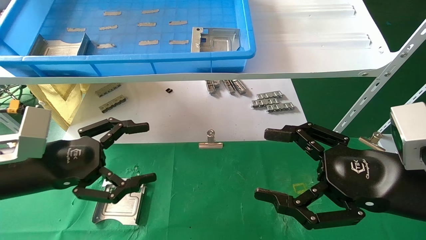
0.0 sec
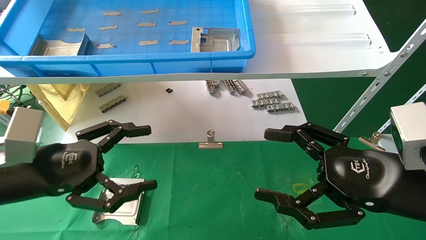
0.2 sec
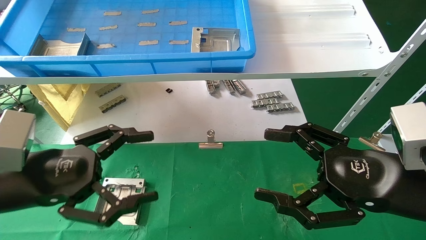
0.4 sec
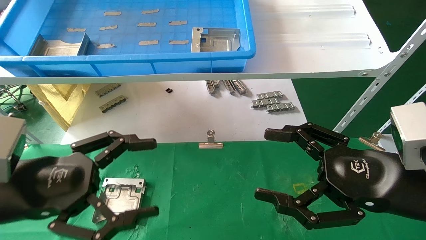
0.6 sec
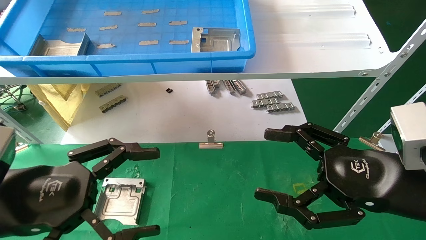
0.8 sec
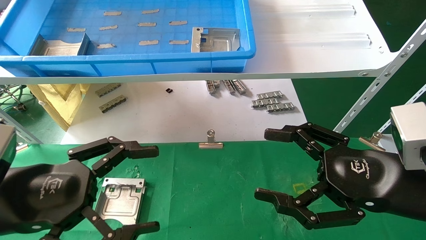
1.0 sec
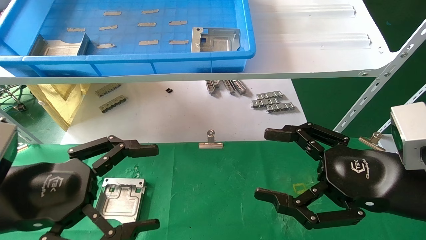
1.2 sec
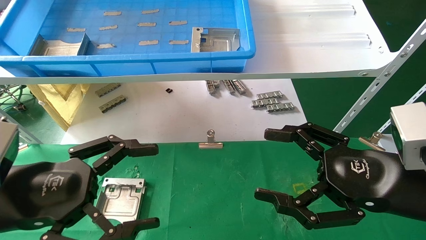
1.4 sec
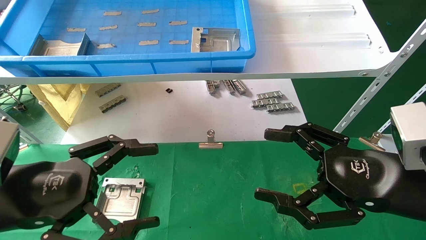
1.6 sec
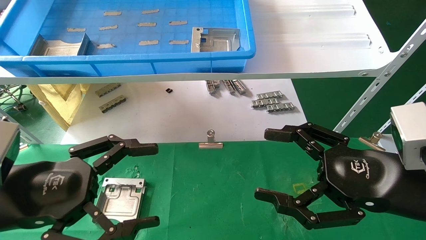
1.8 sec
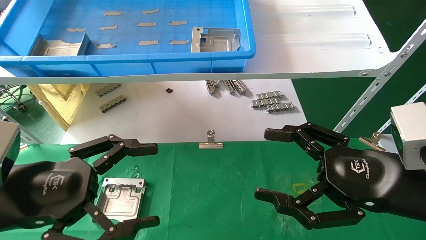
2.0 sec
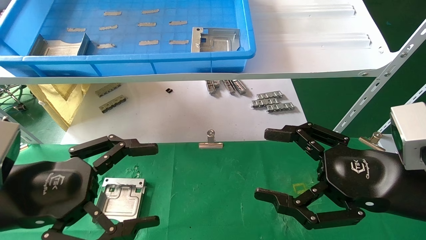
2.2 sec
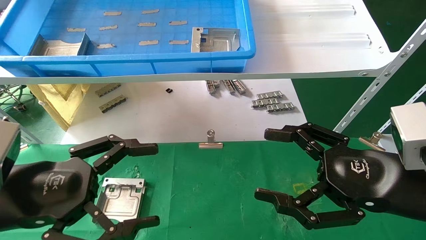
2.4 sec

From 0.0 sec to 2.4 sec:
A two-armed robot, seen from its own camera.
Task of the whole recording: use the mechanical arm to pick up the parts and place them on the table.
From 0.0 sec to 1.2 sec: The left gripper travels backward by some 5 cm.
From 1.2 sec to 2.4 sec: Both grippers stay about where they are.

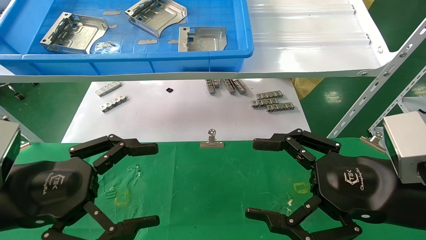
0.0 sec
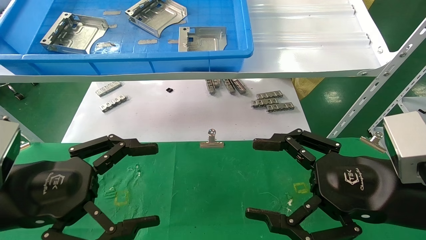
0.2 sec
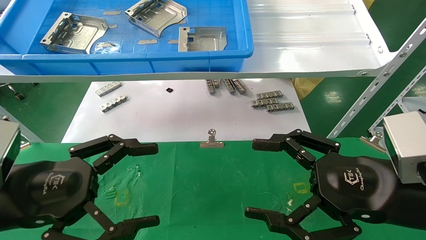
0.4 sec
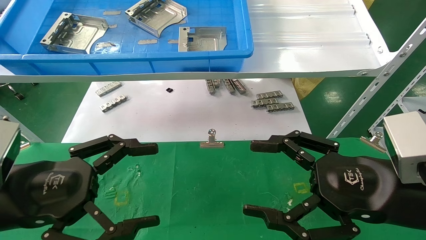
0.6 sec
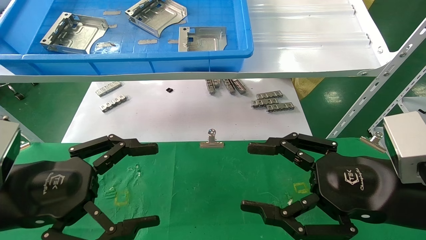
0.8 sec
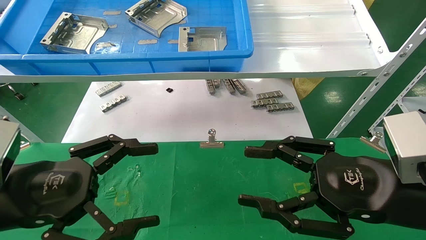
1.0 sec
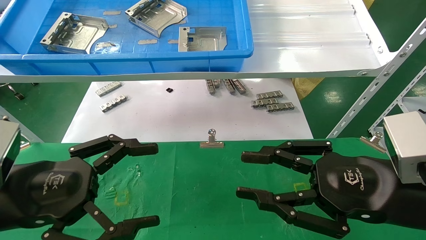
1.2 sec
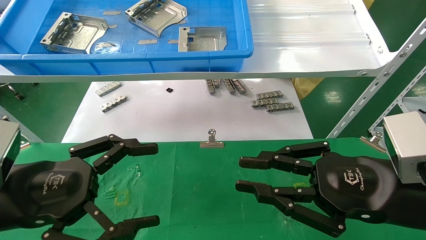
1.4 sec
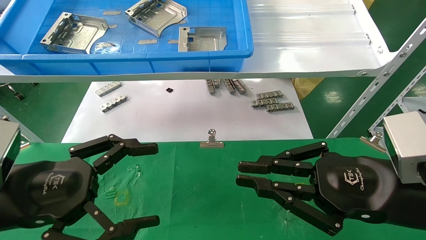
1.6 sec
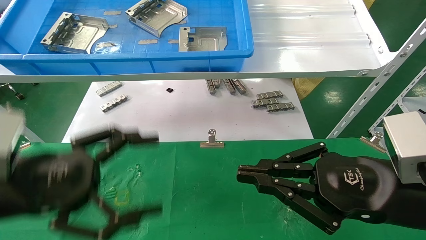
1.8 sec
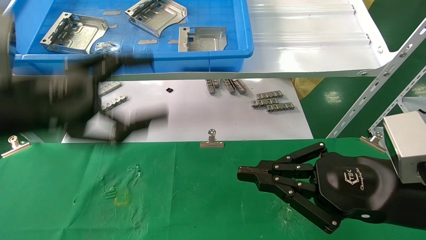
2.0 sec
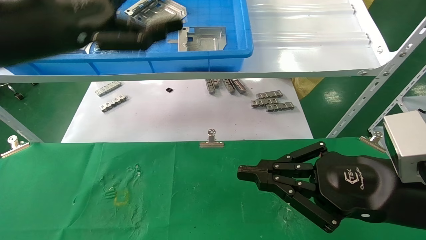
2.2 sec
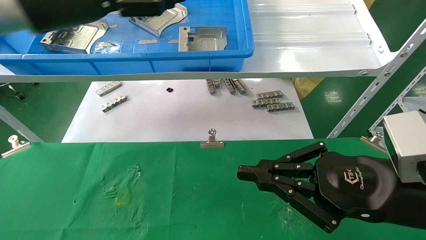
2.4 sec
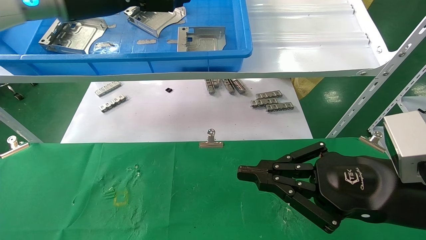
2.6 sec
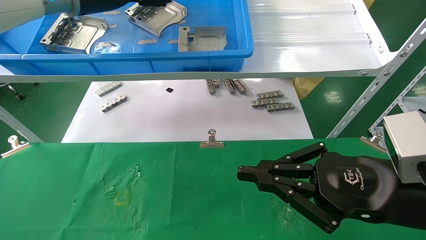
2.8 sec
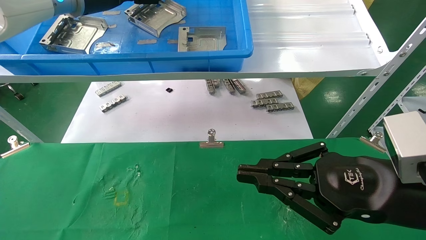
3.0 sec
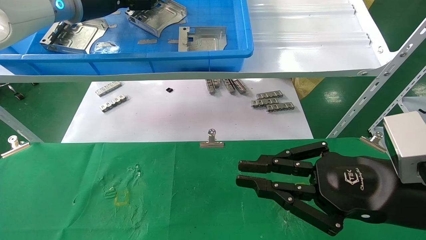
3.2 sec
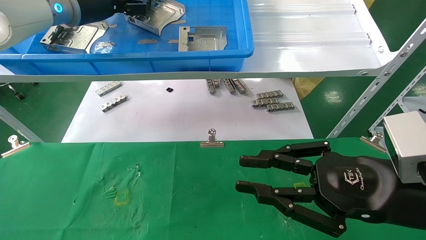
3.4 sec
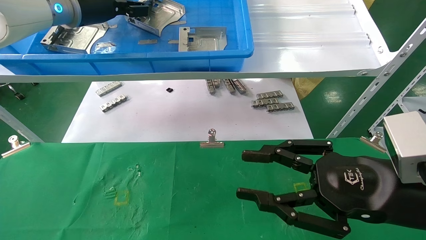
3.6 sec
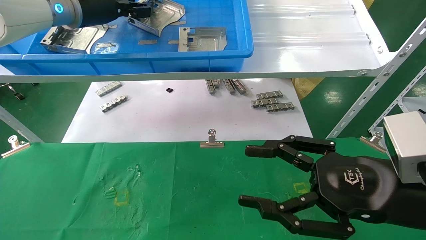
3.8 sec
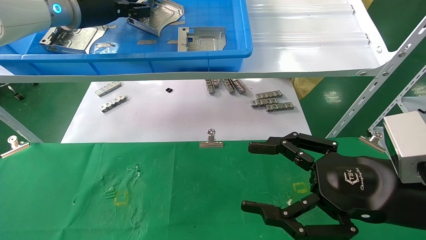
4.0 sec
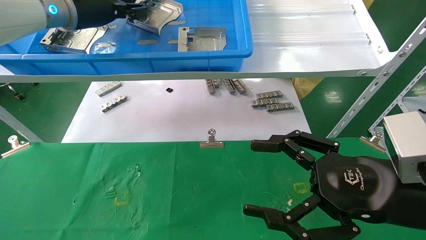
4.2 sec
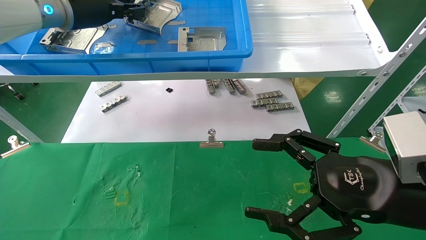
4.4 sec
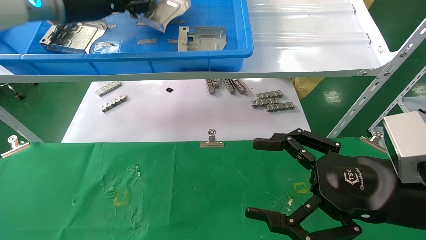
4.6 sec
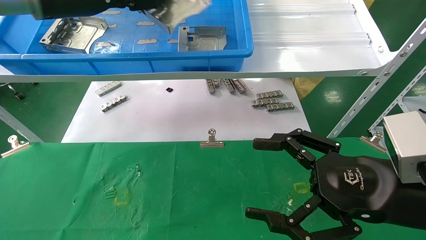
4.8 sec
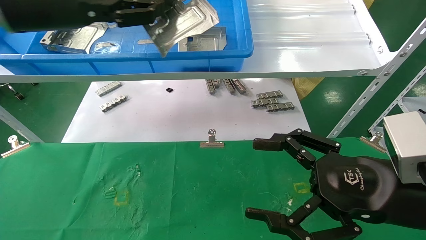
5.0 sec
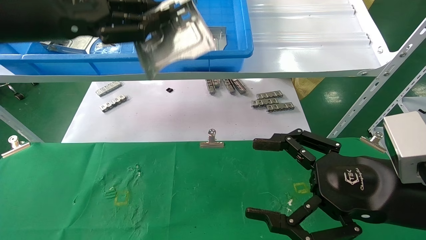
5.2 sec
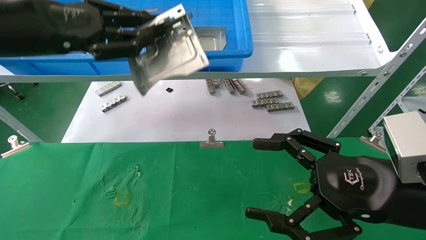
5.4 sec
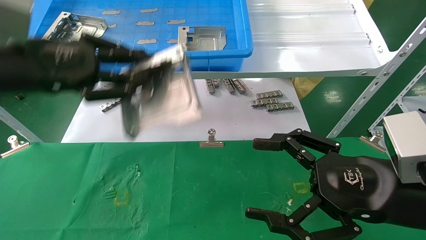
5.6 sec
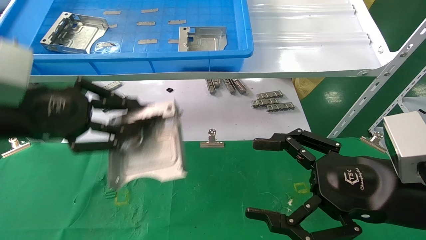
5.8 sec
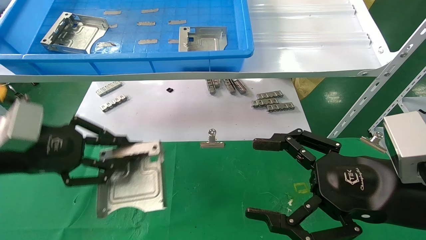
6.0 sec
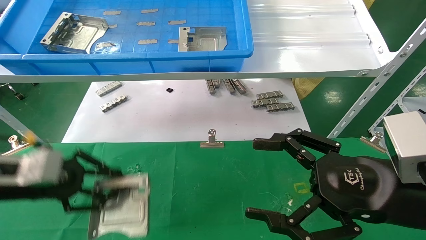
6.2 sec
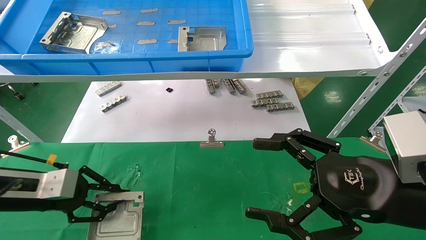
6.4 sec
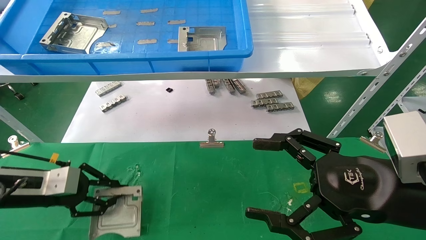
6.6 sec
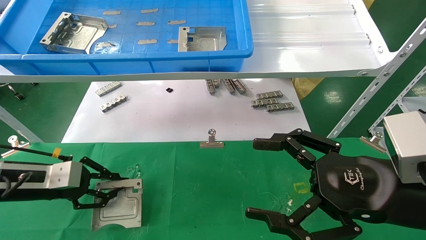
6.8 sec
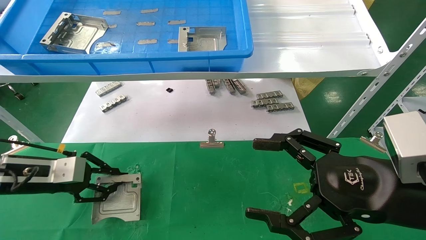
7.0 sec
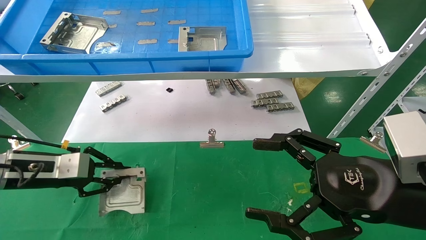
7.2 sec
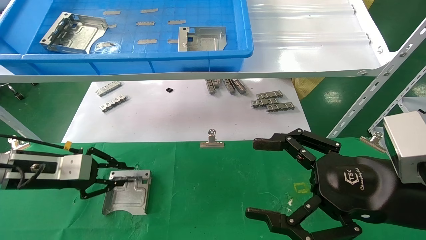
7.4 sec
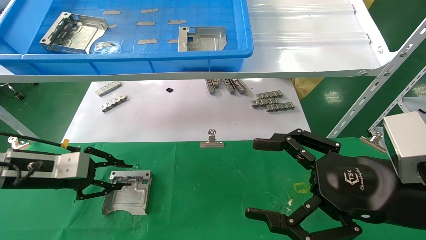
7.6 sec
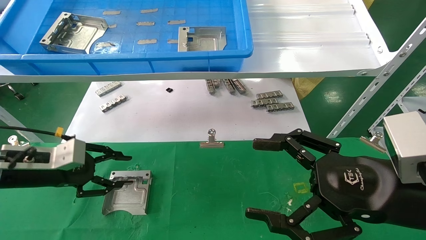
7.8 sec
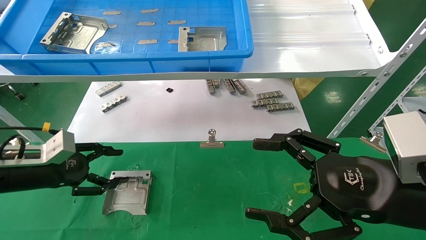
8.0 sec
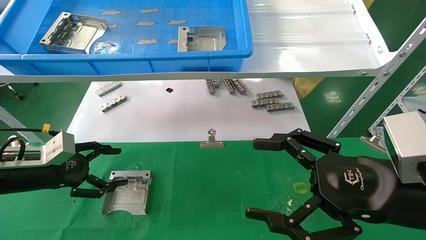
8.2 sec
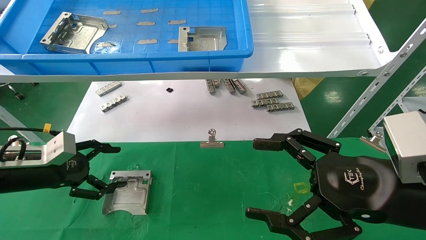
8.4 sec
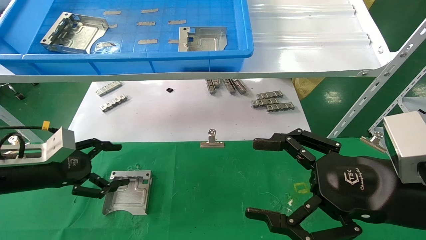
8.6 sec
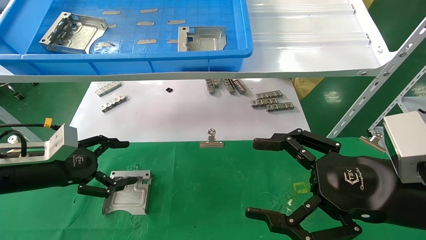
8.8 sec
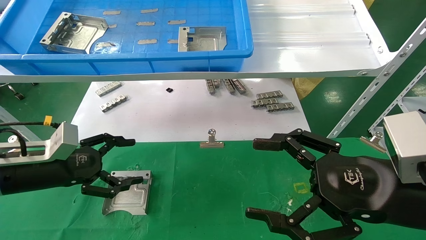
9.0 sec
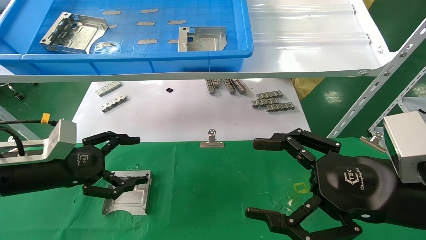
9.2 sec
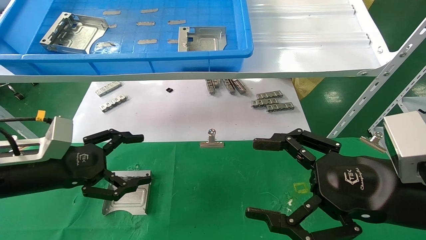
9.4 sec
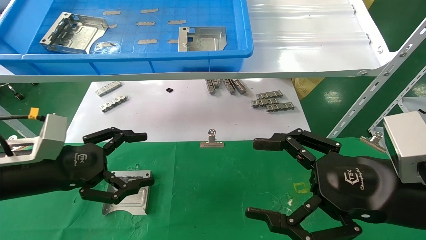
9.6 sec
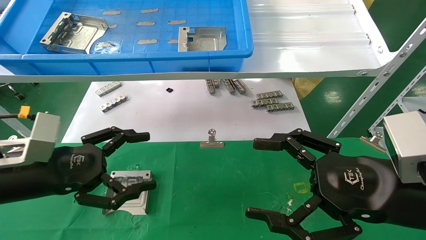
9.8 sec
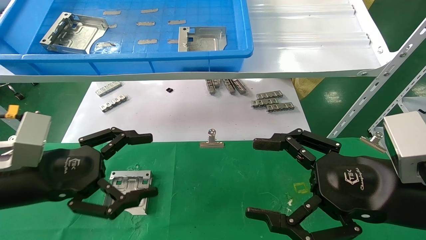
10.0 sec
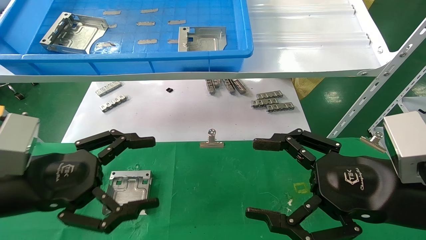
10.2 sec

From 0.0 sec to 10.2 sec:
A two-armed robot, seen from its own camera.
Task of the whole recording: use the mechanical arm to pick up the parts and place them on the table.
Step, from 2.0 sec to 4.4 sec: Pick up the hard drive bracket from the feeding area.
Step, from 4.6 sec to 7.6 sec: Place the hard drive bracket into the box.
From 0.0 sec to 1.4 sec: The right gripper closes.
From 1.4 sec to 3.0 sec: The left gripper shifts roughly 35 cm upward and forward.
From 3.0 sec to 4.4 sec: The left gripper closes. Meanwhile the right gripper opens its fingers.
From 4.4 sec to 5.8 sec: The left gripper moves backward and downward, approximately 20 cm.
From 5.8 sec to 7.2 sec: The left gripper shifts about 15 cm downward, forward and to the left.
From 7.2 sec to 8.8 sec: The left gripper opens its fingers.
From 8.8 sec to 10.2 sec: The left gripper shifts about 10 cm backward and to the right.

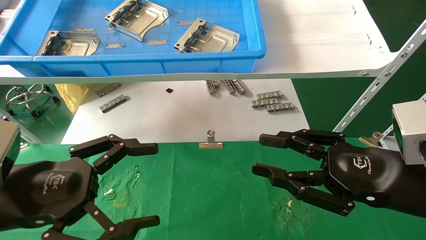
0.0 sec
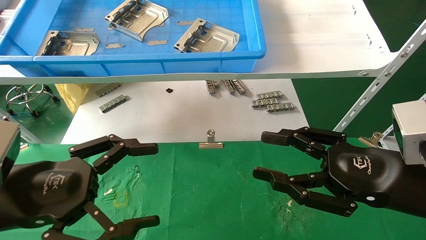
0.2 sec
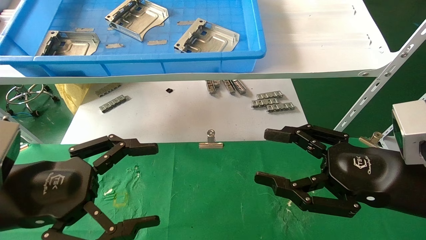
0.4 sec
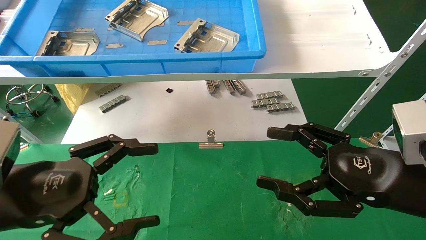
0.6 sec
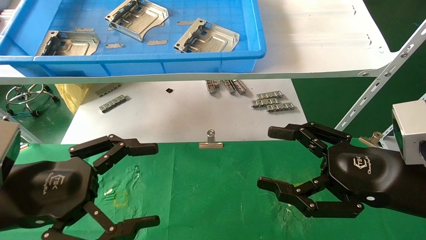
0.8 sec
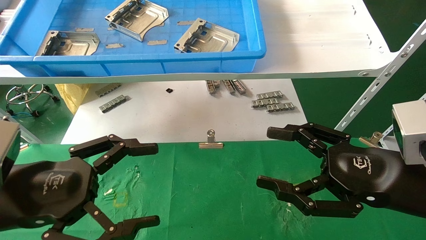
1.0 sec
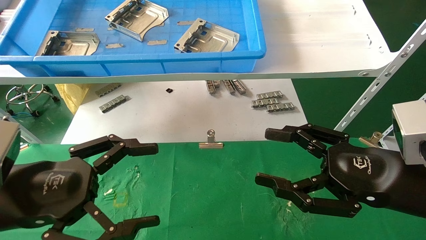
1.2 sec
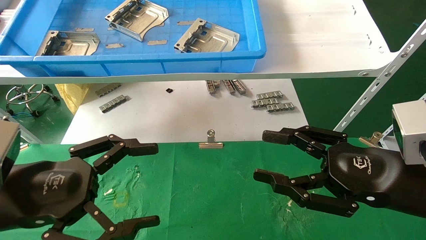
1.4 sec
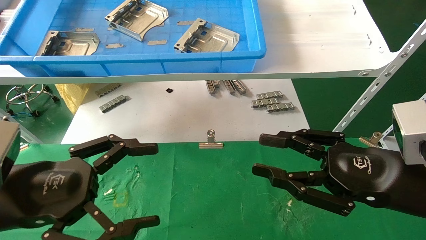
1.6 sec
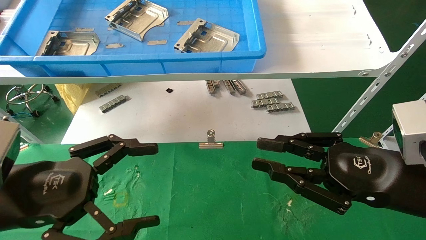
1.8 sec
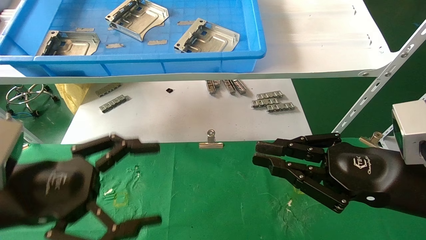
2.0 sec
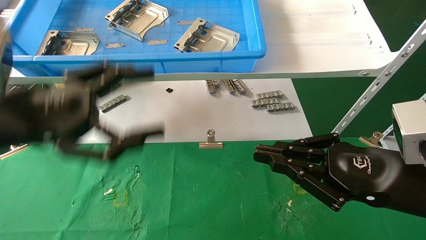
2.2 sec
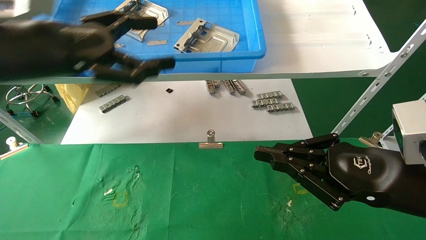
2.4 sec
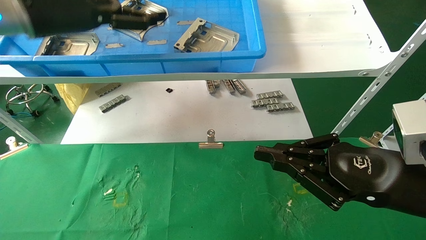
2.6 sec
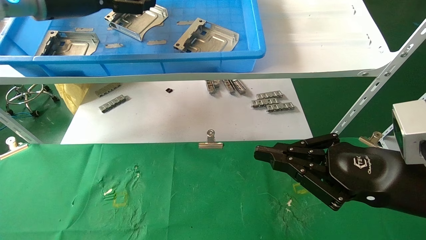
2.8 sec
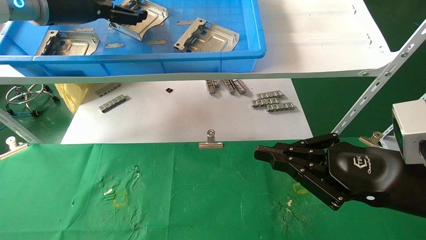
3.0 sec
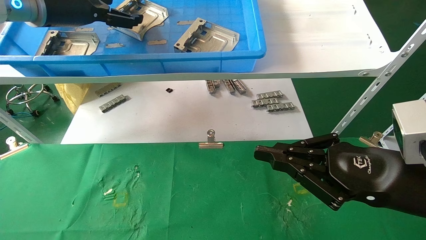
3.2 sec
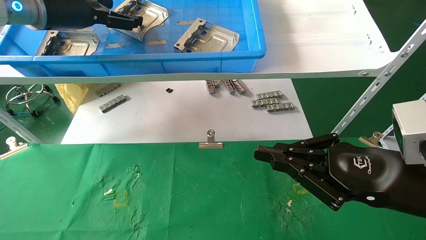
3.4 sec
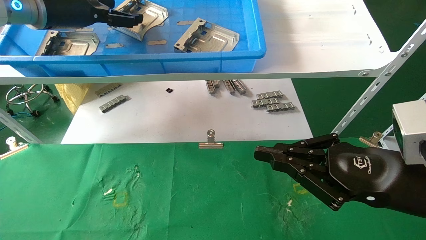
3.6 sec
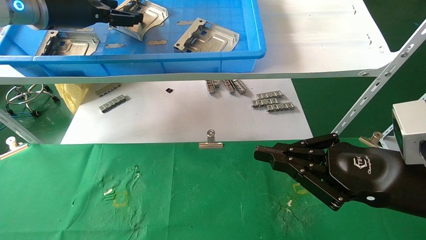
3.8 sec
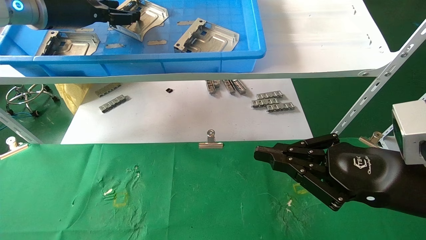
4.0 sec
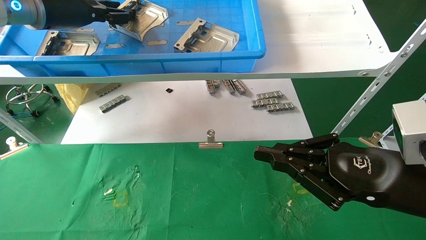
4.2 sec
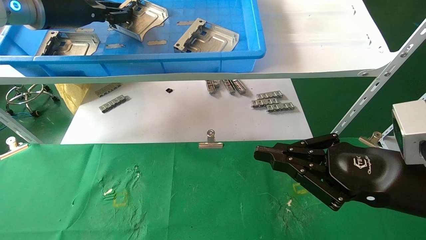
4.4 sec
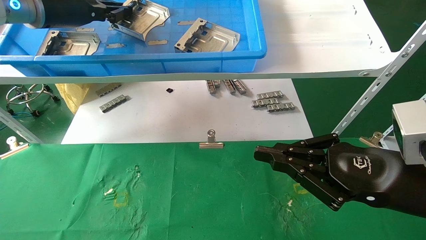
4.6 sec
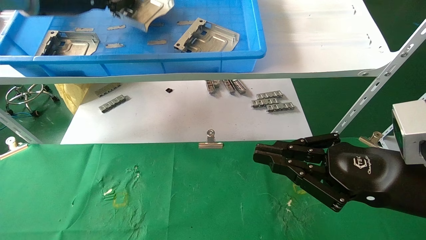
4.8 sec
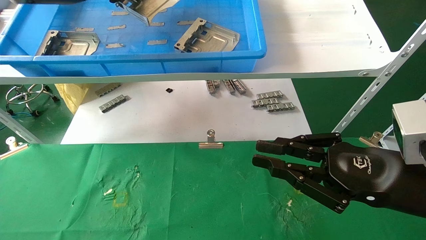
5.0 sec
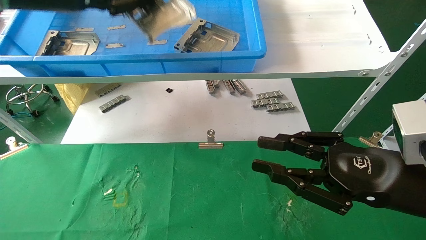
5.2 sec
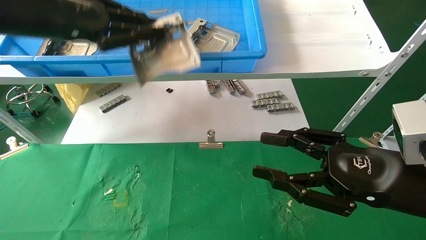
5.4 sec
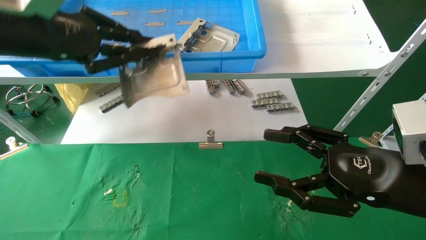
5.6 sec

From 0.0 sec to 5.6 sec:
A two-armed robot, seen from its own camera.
Task of the whole recording: use the mechanical arm to pick up the parts and place them on the table.
Step, from 2.2 sec to 4.8 sec: Pick up the hard drive bracket from the feeding area.
From 0.0 sec to 1.4 sec: Neither gripper changes place.
From 1.4 sec to 2.8 sec: The left gripper moves upward and forward, about 30 cm. Meanwhile the right gripper closes.
From 2.8 sec to 4.2 sec: The left gripper closes.
From 4.2 sec to 5.6 sec: The right gripper opens its fingers. Meanwhile the left gripper travels backward by roughly 10 cm, and closes up.
